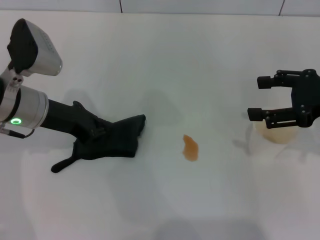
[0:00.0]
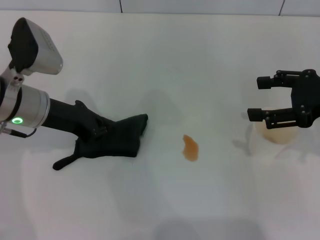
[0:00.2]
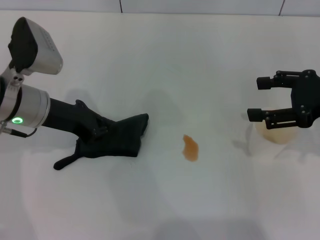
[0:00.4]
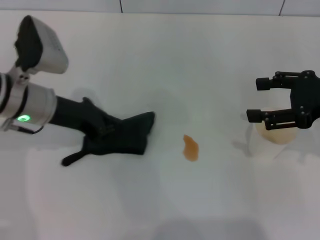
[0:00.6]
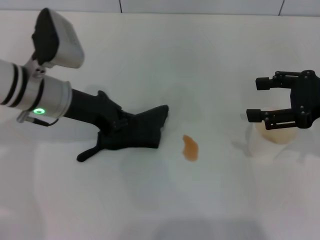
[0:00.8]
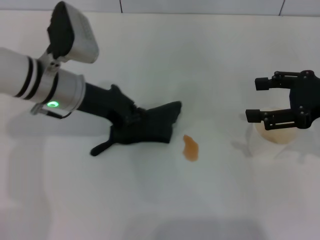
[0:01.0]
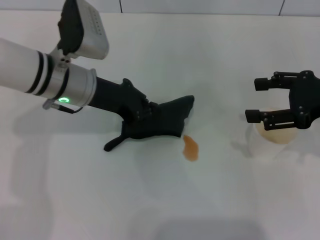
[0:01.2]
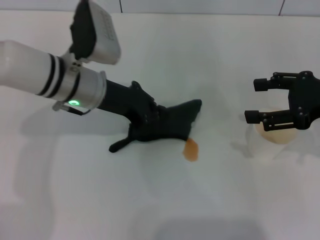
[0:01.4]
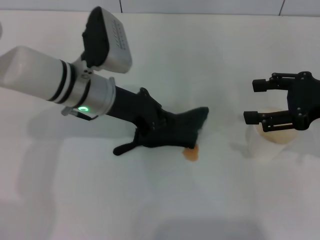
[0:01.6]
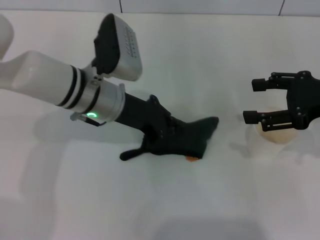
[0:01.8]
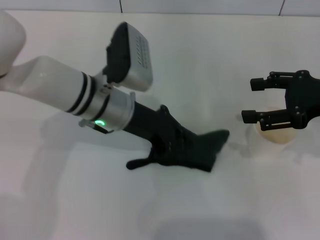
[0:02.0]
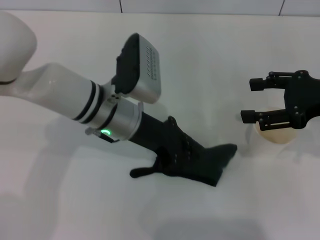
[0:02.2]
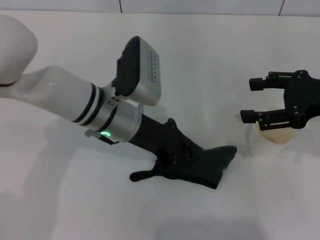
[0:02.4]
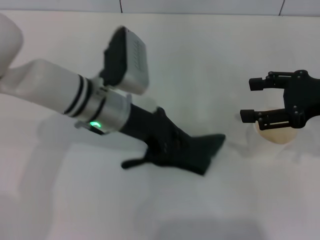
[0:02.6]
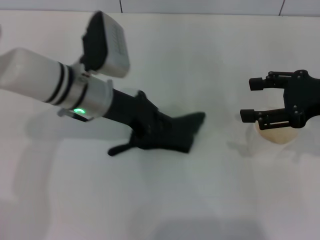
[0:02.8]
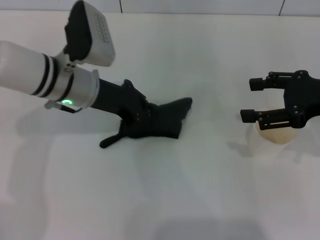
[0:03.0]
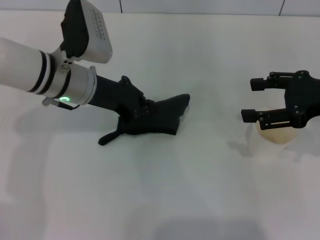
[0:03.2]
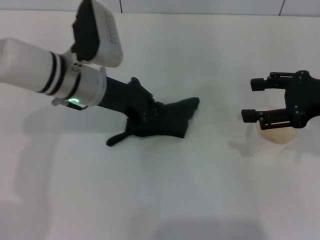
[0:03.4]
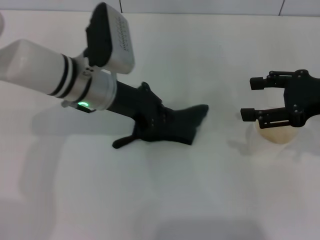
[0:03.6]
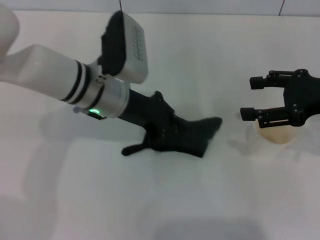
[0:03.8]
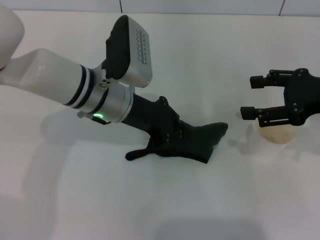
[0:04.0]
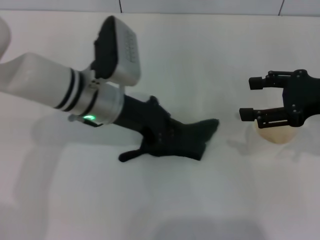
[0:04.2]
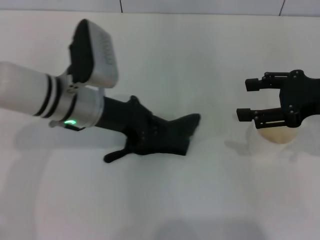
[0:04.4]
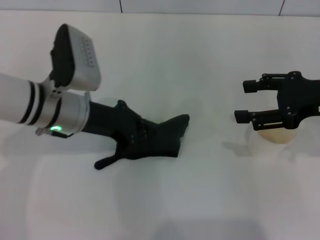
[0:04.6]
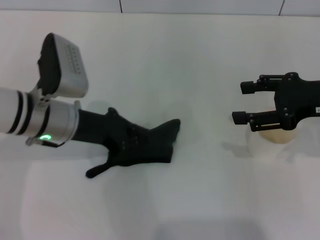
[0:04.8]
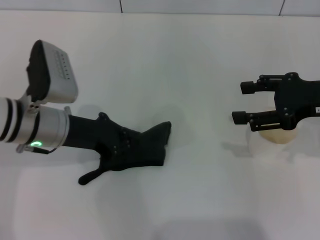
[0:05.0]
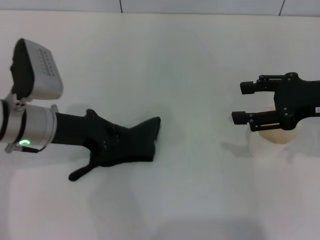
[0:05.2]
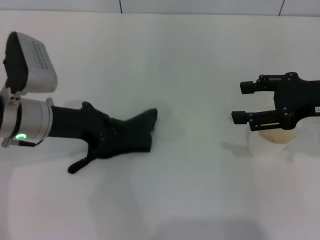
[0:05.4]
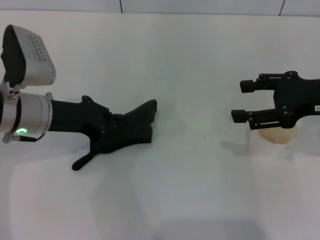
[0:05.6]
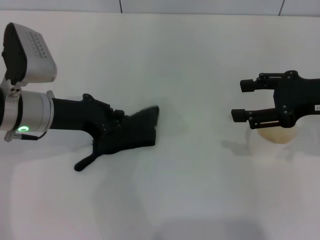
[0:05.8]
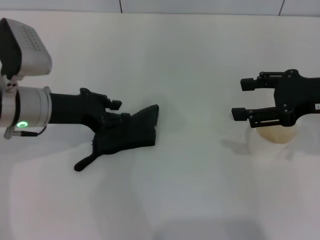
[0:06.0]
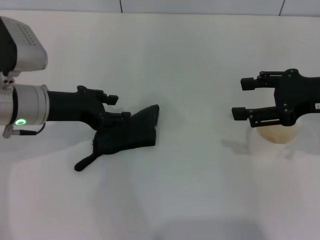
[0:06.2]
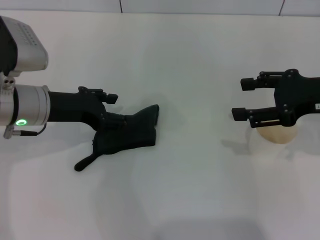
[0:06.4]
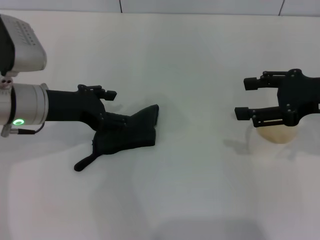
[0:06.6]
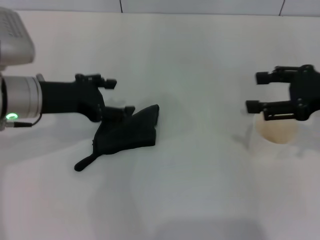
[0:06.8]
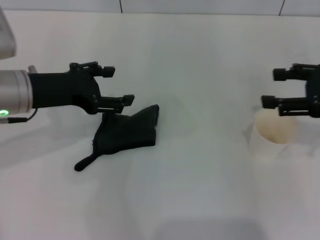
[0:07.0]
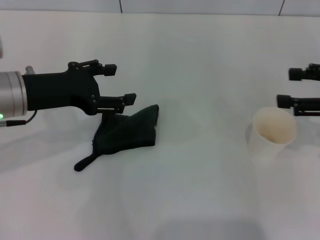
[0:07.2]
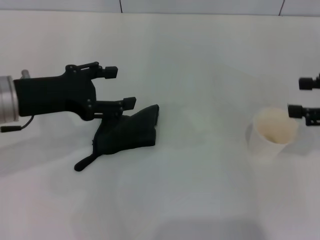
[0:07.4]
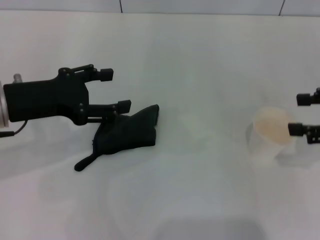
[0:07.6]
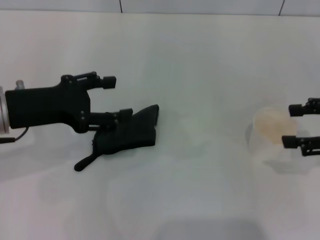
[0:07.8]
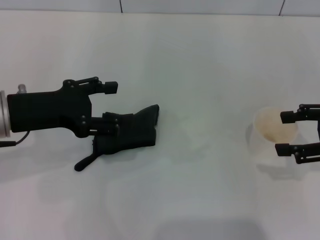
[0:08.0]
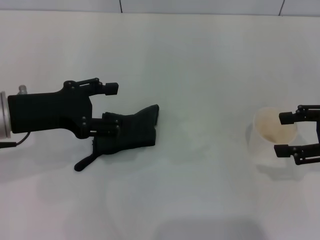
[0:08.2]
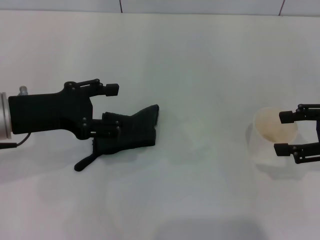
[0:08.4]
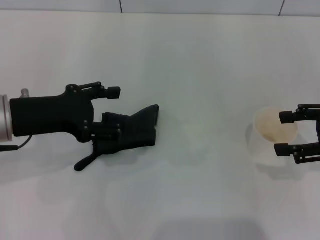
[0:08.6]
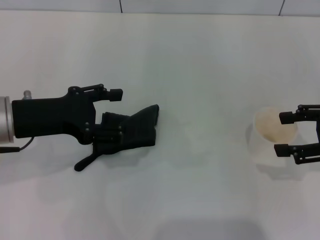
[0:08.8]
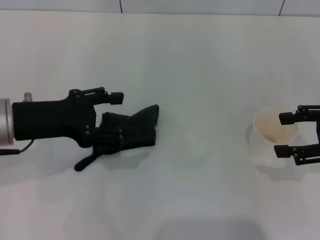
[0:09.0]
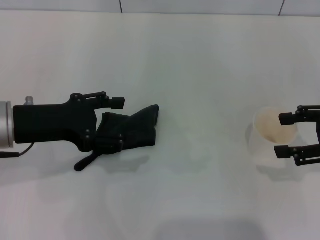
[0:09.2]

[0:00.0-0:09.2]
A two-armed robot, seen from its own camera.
Step, 0:00.0 to 0:06.4: Wipe the stains off the table with the left gripper.
Step, 0:06.8 to 0:07.0: Place the rag on the table with the left gripper.
0:00.0 to 0:01.6: The left gripper travels to the right by roughly 10 cm.
0:01.6 to 0:04.6: The grippers stay close to where they were, moving slightly.
0:04.6 to 0:06.2: The left gripper moves to the left, approximately 5 cm, and opens its fingers.
0:06.2 to 0:07.6: The left gripper shifts by about 5 cm, and opens; the right gripper shifts about 5 cm to the right.
0:07.6 to 0:09.2: The grippers make only small movements.
